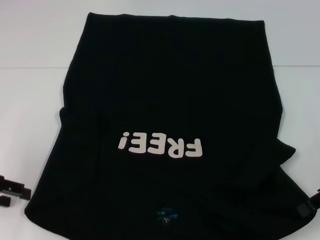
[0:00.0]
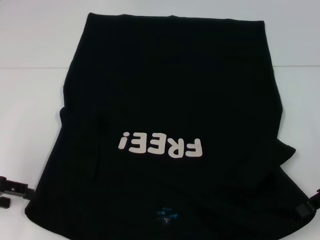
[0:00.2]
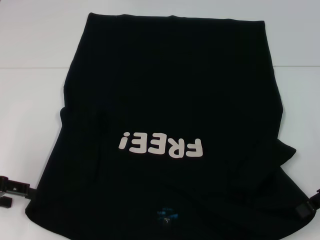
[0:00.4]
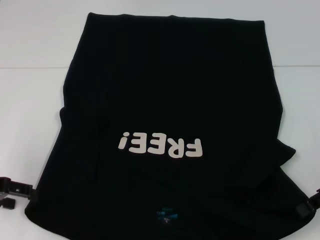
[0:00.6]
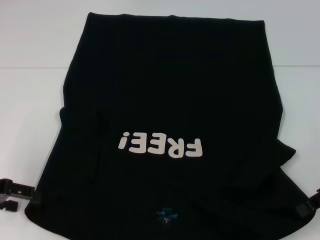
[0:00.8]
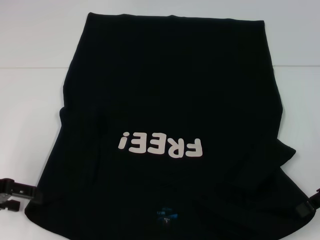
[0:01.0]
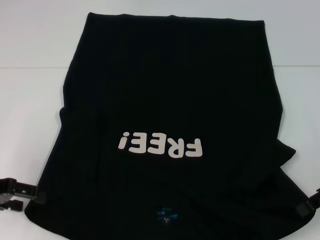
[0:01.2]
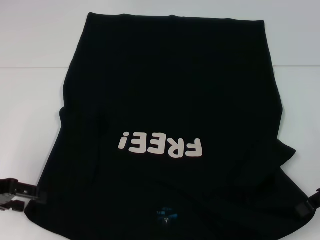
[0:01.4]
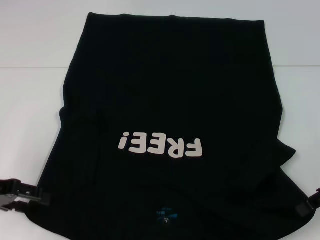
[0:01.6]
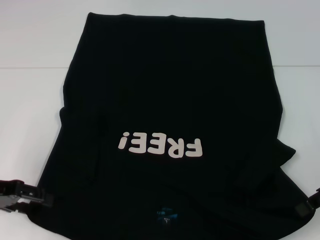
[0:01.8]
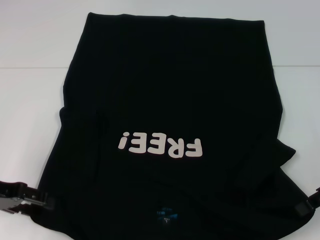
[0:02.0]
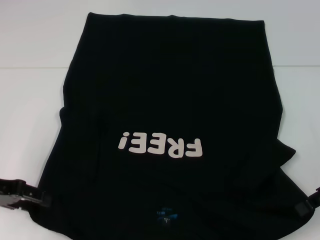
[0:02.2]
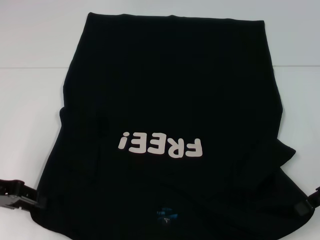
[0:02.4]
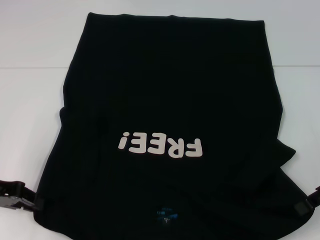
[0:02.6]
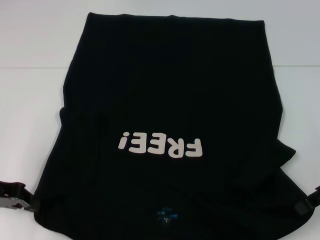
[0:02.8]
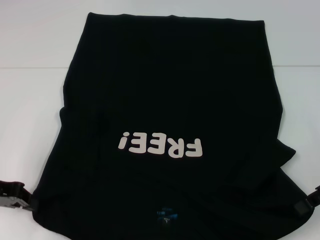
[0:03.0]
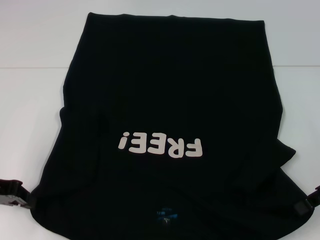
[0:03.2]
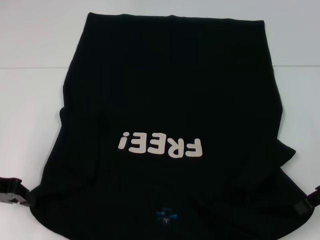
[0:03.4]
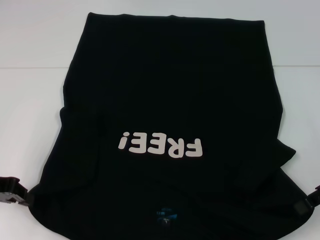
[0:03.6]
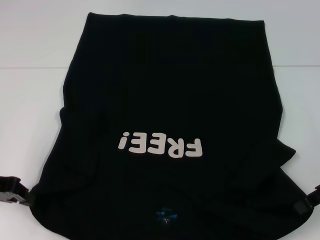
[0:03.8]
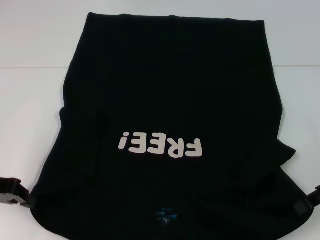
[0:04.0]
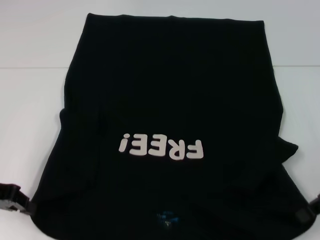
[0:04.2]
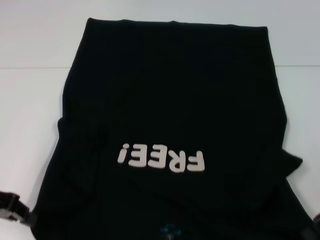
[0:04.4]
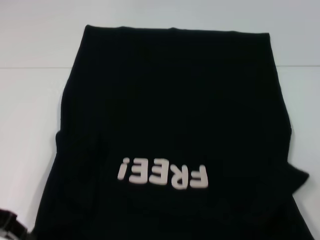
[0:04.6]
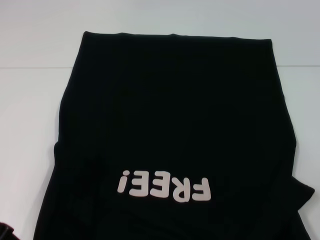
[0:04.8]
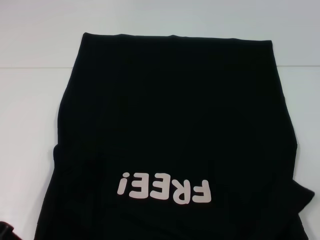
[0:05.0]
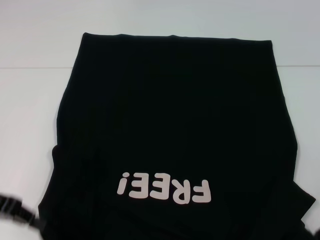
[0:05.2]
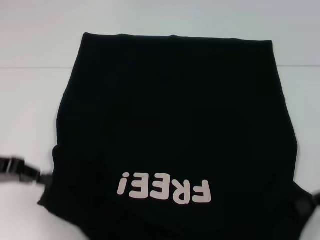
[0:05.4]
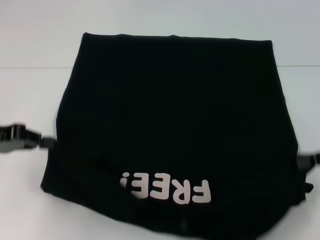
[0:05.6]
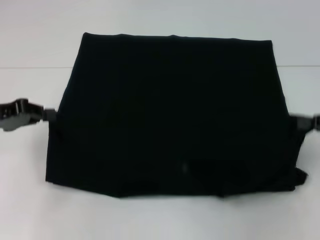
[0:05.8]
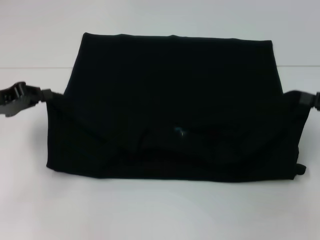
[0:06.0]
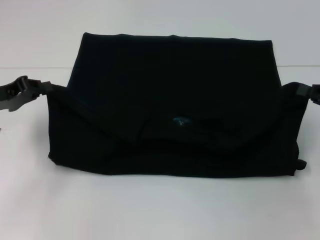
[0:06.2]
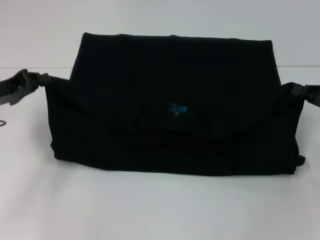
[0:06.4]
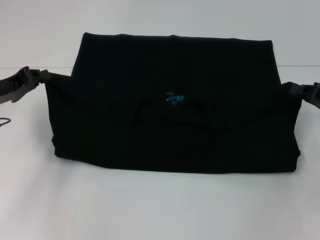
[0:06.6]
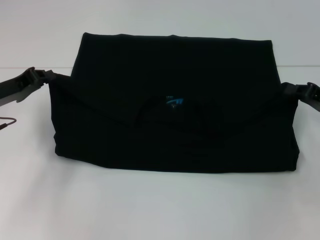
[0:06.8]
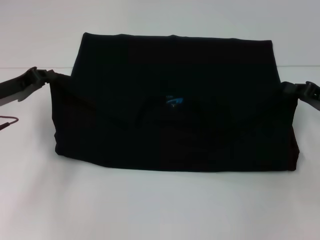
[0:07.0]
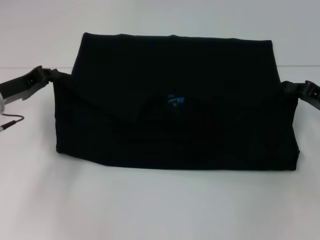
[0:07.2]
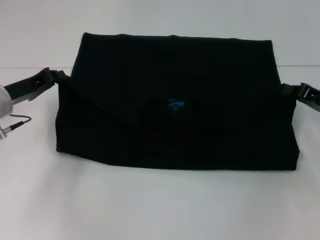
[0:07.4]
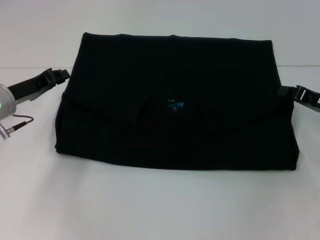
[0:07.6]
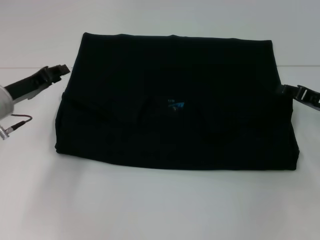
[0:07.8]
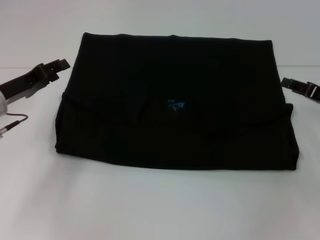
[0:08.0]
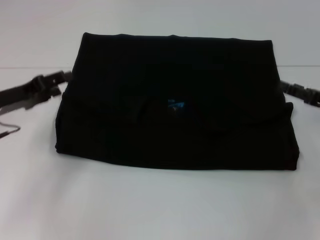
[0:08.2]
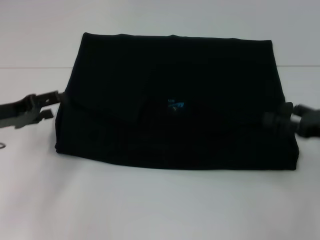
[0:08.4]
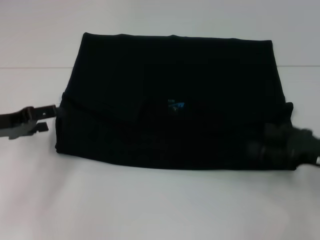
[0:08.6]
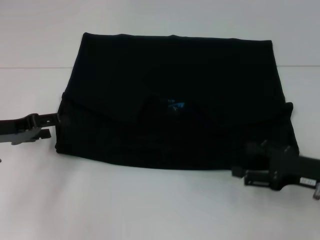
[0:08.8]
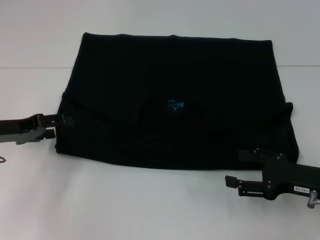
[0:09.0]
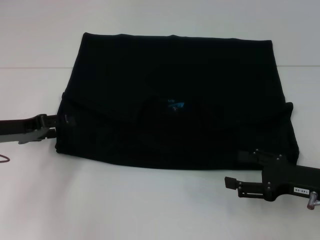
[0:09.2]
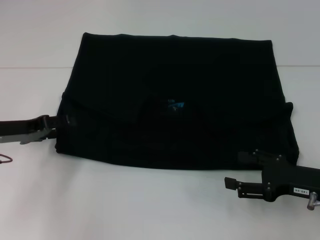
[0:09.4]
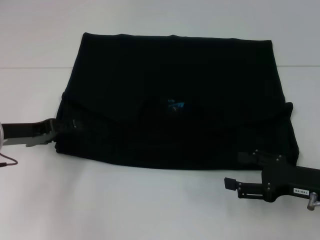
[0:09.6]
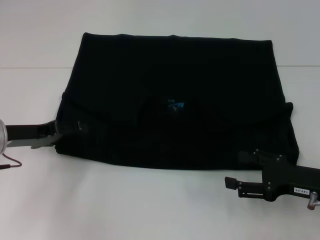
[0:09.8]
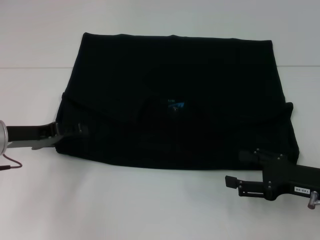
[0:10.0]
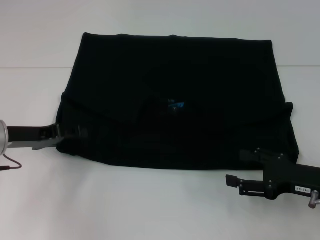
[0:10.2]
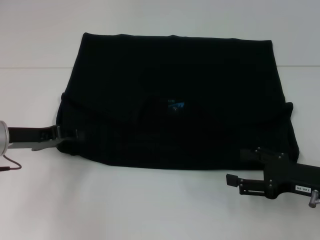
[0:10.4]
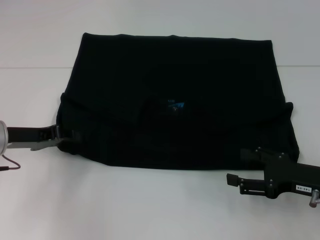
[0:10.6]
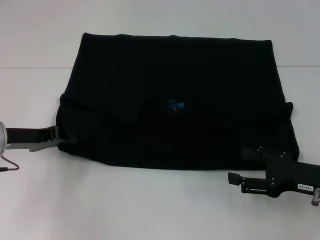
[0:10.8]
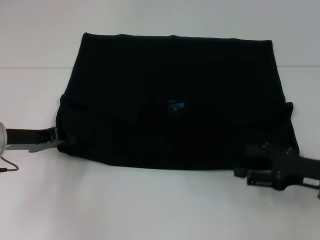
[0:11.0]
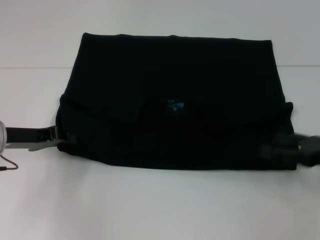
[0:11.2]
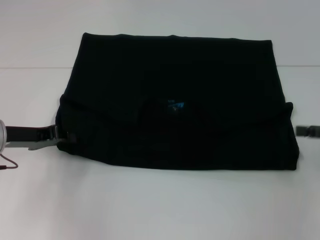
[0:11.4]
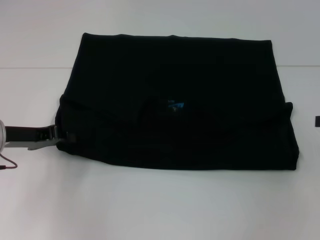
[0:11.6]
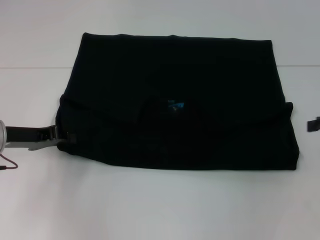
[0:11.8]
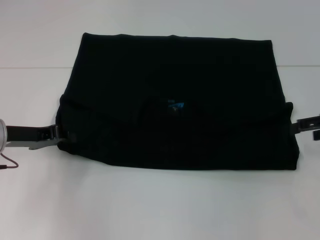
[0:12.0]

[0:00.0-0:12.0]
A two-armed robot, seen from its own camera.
Step, 0:00.0 to 0:08.6: Fold the clothes with your left hand.
Step, 0:00.0 to 0:08.6: Fold the clothes with your right hand.
0:00.0 to 0:01.6: The left gripper opens its fingers.
0:01.6 to 0:03.0: The left gripper closes its fingers.
0:03.0 to 0:04.4: The grippers stay close to where they were, moving slightly.
0:04.4 to 0:06.0: The right gripper travels to the right by approximately 5 cm. Meanwhile the left gripper shifts roughly 5 cm forward.
0:06.0 to 0:07.6: The right gripper moves downward and to the left, some 5 cm, while the left gripper moves to the right, some 5 cm.
0:07.6 to 0:09.0: The left gripper changes place by about 5 cm, and opens its fingers; the right gripper moves backward, about 10 cm, and opens its fingers.
0:09.0 to 0:10.4: The left gripper closes.
0:10.4 to 0:12.0: The right gripper heads upward, forward and to the right, covering approximately 15 cm. Meanwhile the left gripper closes up.

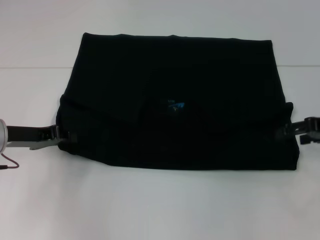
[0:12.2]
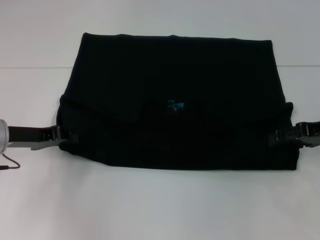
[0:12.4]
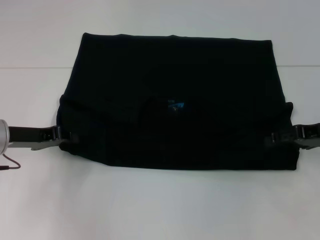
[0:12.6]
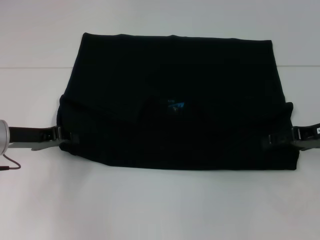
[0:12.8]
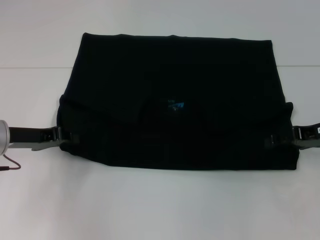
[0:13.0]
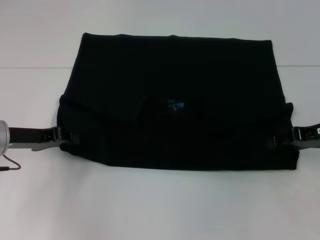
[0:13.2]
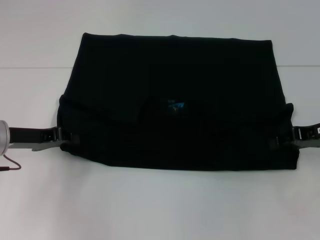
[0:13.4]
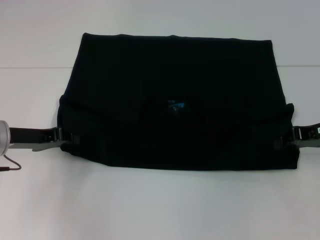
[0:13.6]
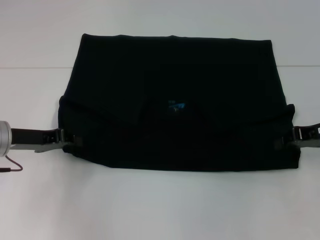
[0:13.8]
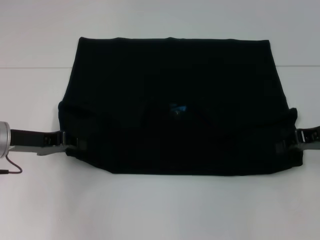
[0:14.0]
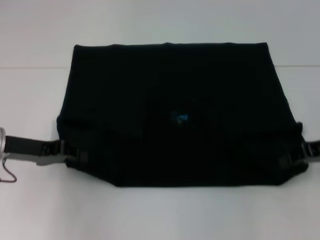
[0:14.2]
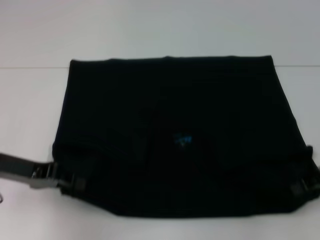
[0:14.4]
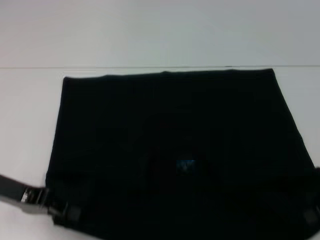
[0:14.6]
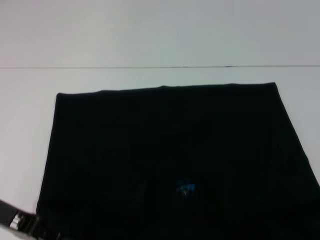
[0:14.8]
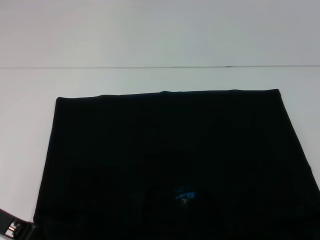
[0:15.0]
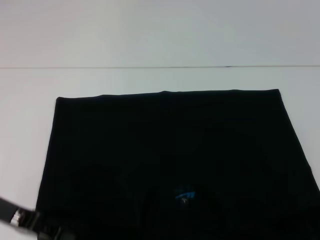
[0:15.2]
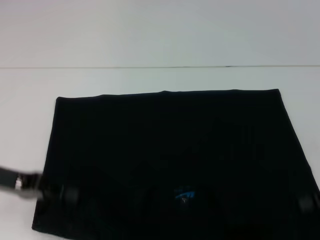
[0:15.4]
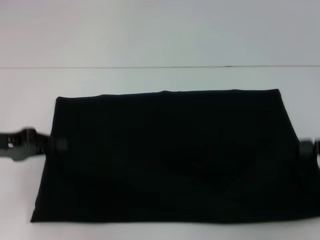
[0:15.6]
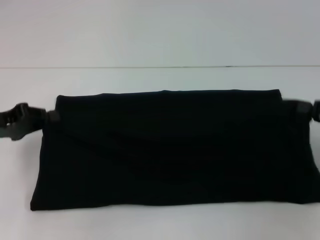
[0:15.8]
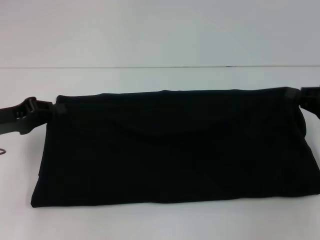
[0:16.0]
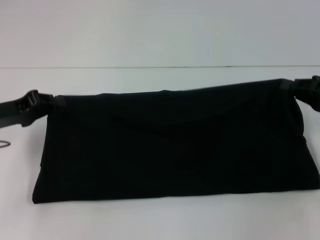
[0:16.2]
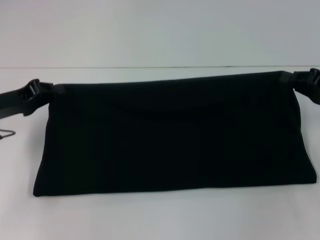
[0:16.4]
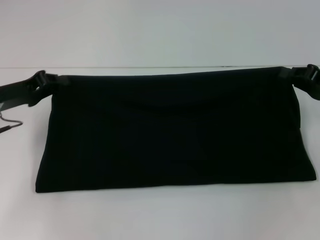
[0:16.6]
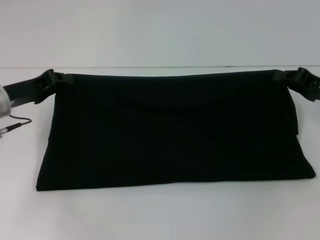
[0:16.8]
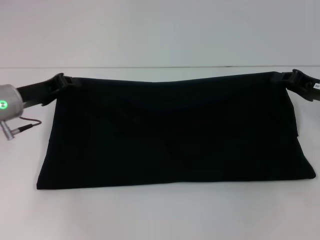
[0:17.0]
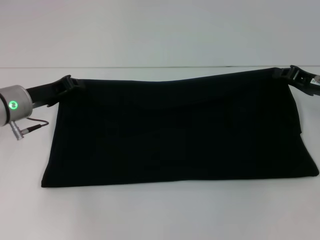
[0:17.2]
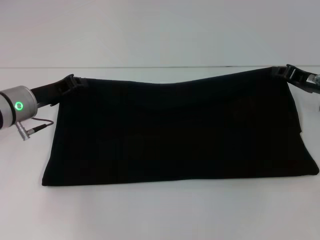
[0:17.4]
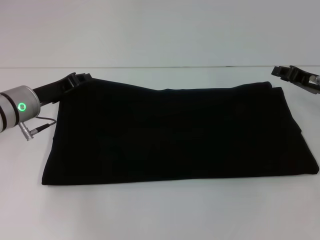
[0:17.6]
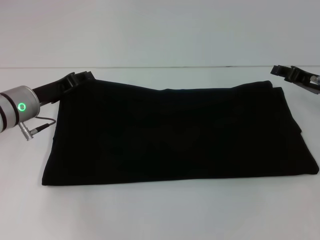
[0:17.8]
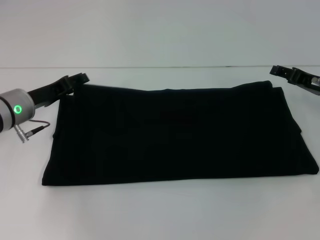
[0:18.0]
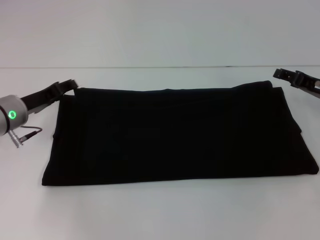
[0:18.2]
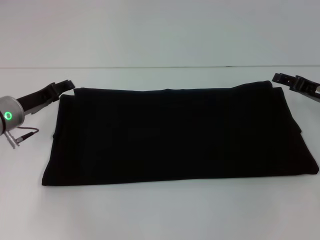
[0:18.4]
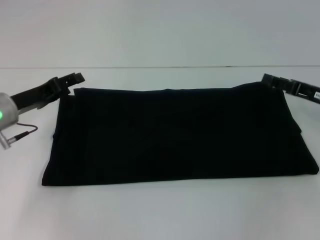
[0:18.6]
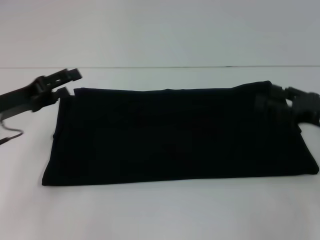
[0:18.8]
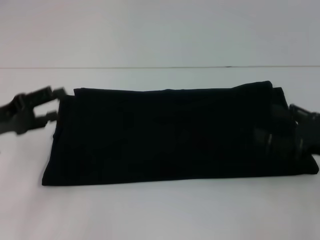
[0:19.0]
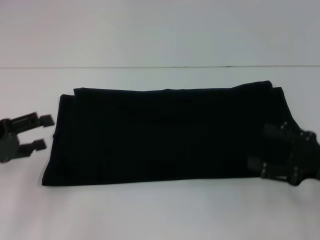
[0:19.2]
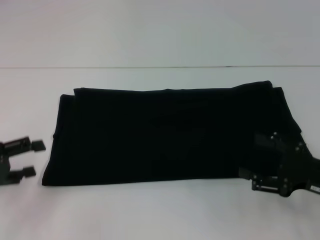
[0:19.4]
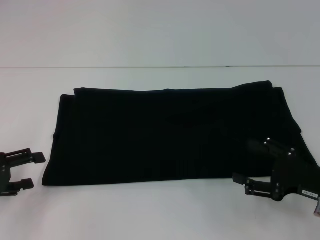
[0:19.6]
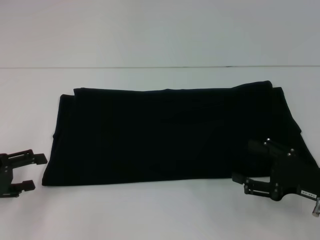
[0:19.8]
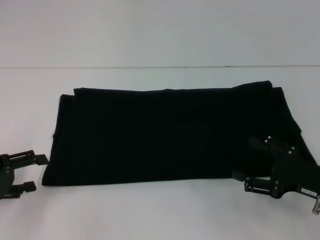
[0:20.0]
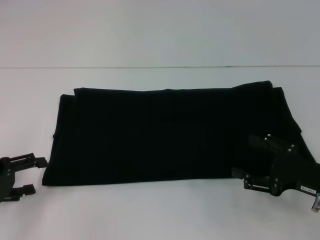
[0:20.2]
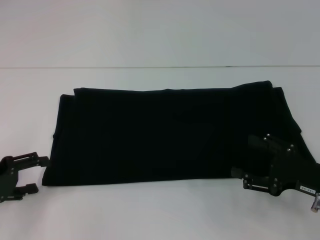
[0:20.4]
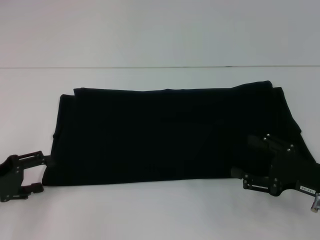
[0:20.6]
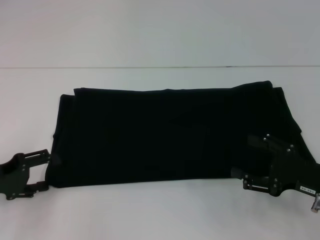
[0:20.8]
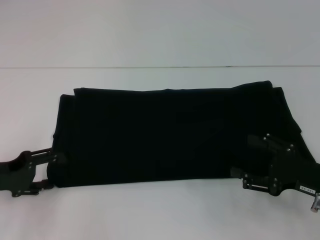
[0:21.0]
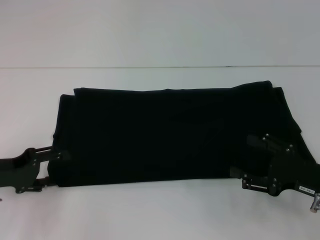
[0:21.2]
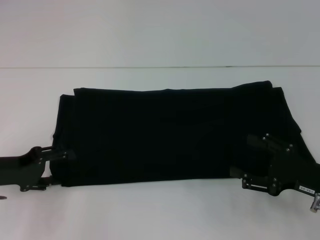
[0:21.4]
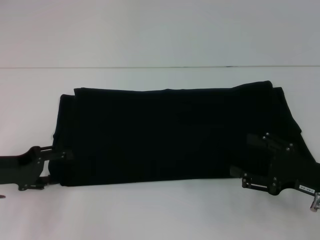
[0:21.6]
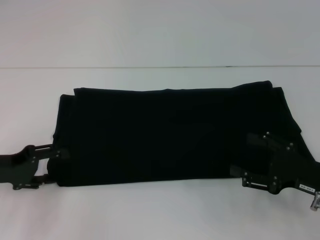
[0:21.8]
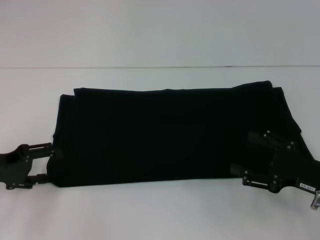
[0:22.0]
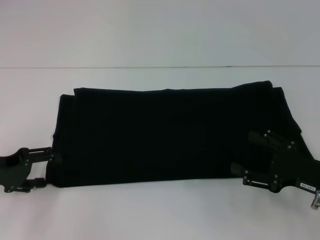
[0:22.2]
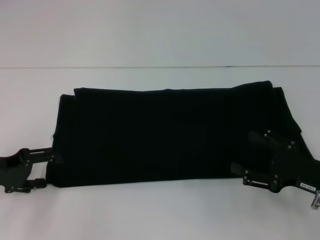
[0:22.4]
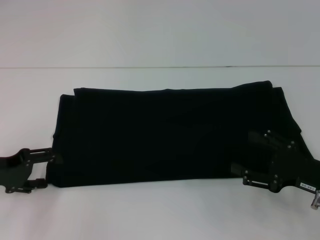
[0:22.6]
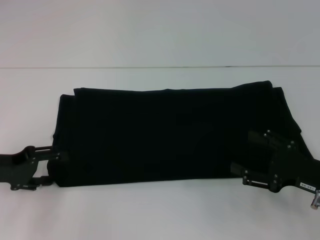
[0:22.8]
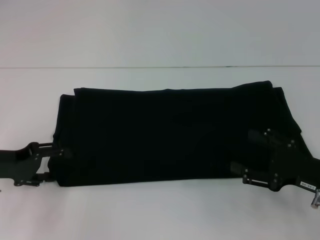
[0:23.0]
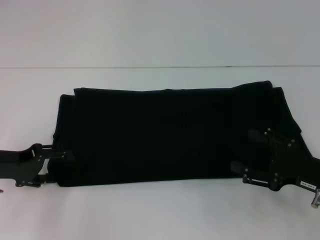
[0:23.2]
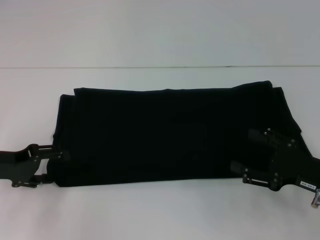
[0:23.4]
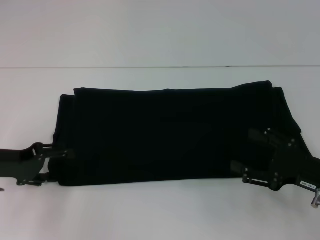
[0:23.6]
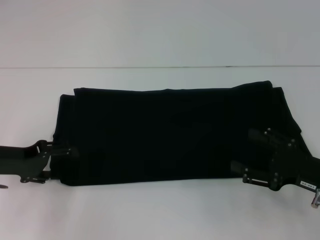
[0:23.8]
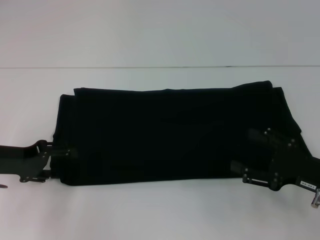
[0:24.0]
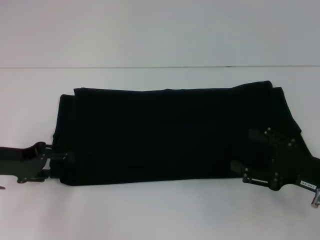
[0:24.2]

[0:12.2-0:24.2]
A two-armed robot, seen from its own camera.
Step, 0:12.2 to 0:14.6: Pull the clothes with your left hand.
Step, 0:12.2 to 0:14.6: Pull the clothes with your right hand.
Step, 0:14.8 to 0:18.4: Fold the clothes with your right hand.
0:12.2 to 0:13.8: The right gripper closes.
0:13.8 to 0:15.2: Both grippers move backward, approximately 10 cm.
0:15.2 to 0:16.6: The two grippers go about 10 cm forward.
0:16.6 to 0:18.2: The left gripper ends up some 5 cm from where it was, and opens its fingers, while the right gripper opens.
0:18.2 to 0:19.8: The left gripper heads backward and to the left, covering approximately 15 cm. Meanwhile the right gripper moves backward, approximately 15 cm.
0:19.8 to 0:22.6: The grippers make only small movements.
0:22.6 to 0:24.2: The grippers stay close to where they were, moving slightly.
